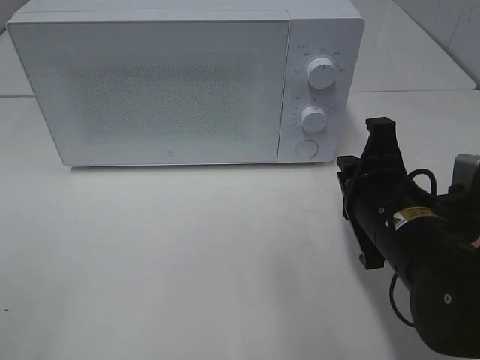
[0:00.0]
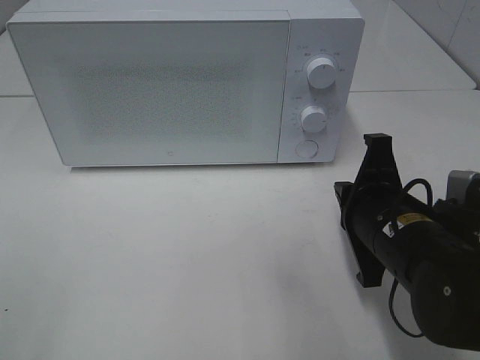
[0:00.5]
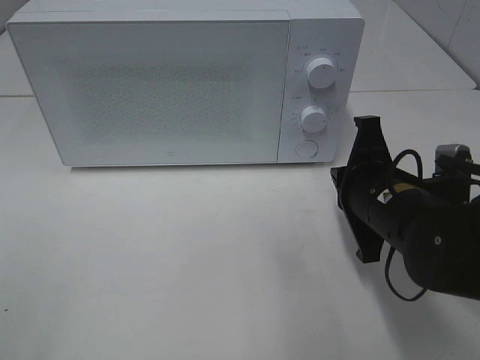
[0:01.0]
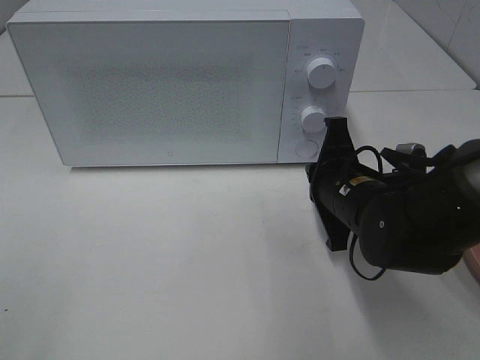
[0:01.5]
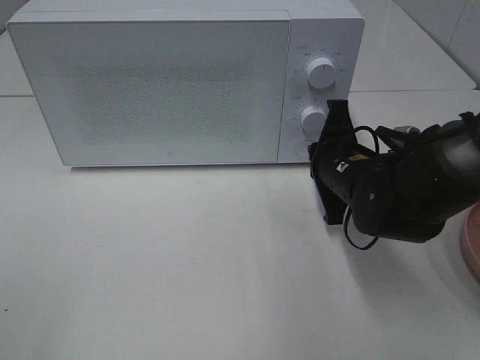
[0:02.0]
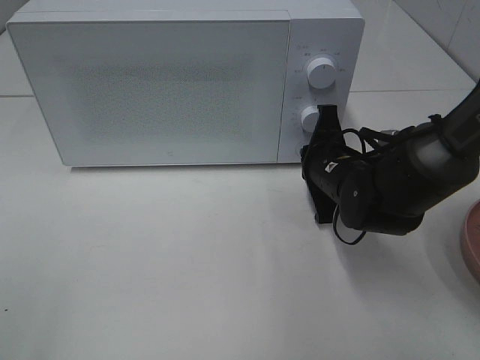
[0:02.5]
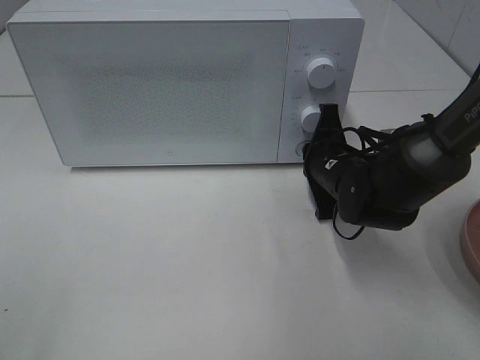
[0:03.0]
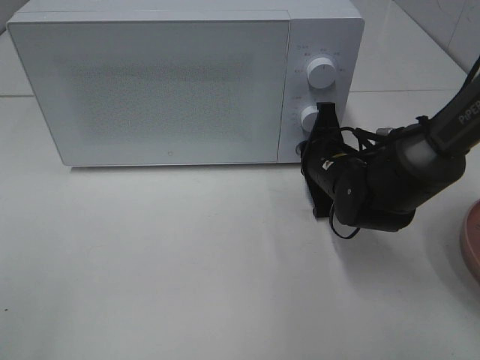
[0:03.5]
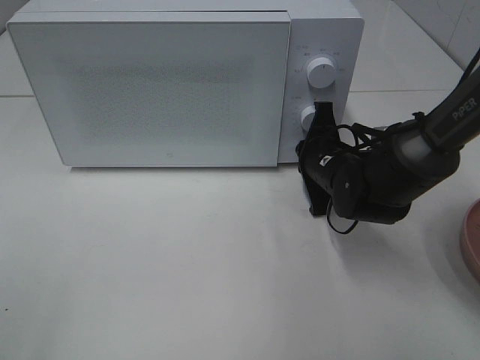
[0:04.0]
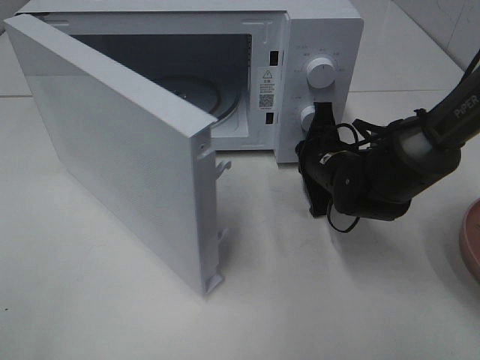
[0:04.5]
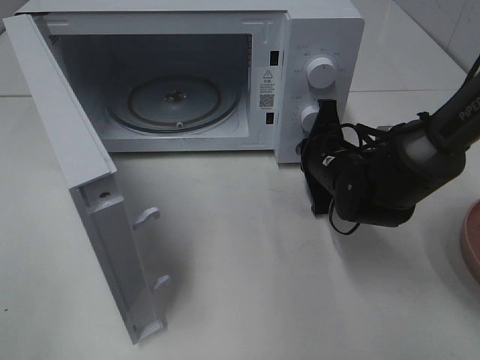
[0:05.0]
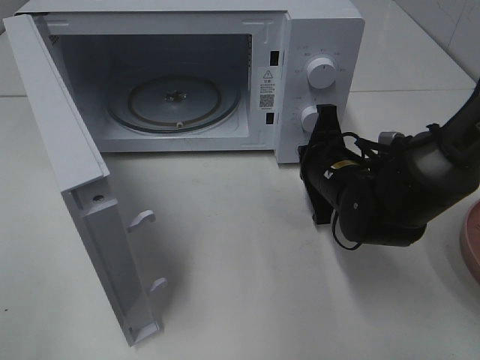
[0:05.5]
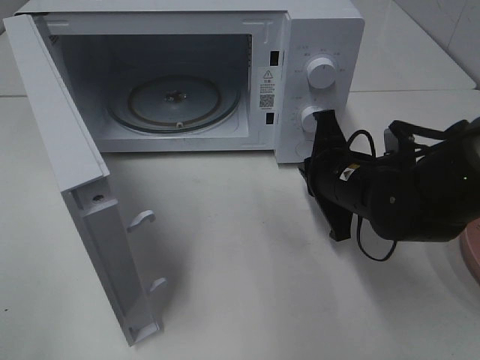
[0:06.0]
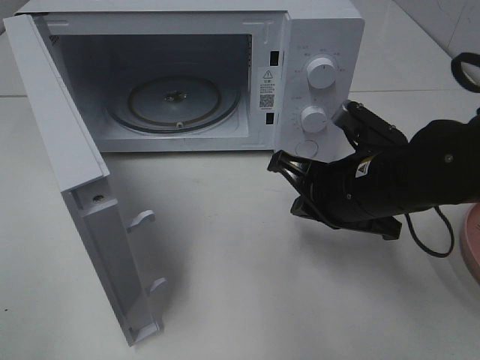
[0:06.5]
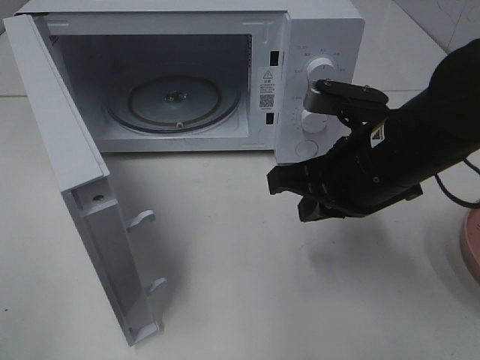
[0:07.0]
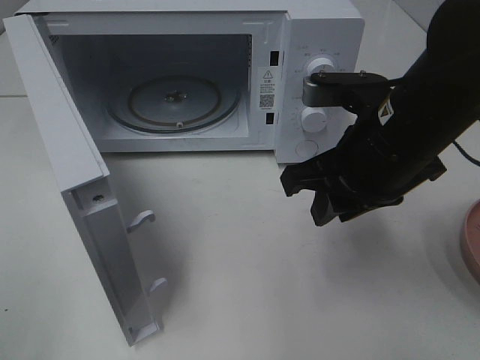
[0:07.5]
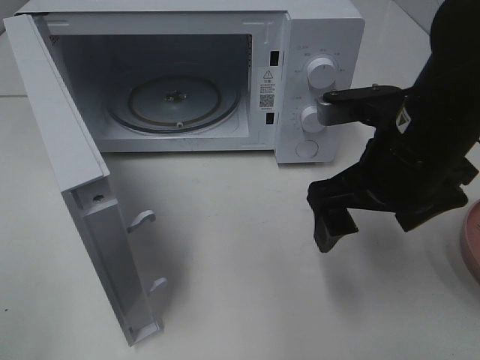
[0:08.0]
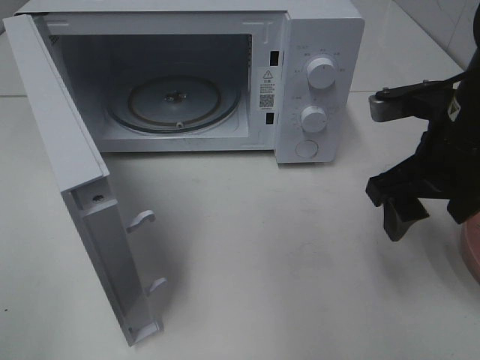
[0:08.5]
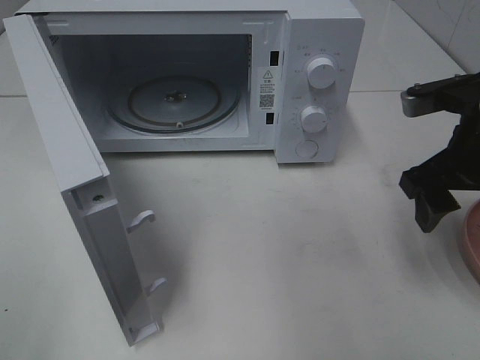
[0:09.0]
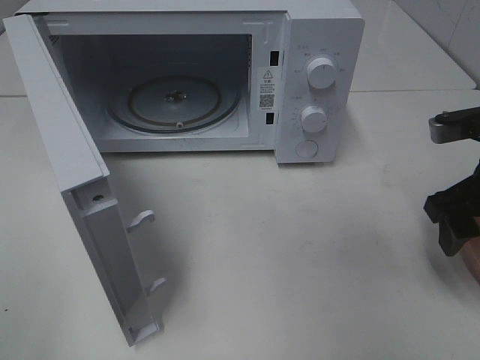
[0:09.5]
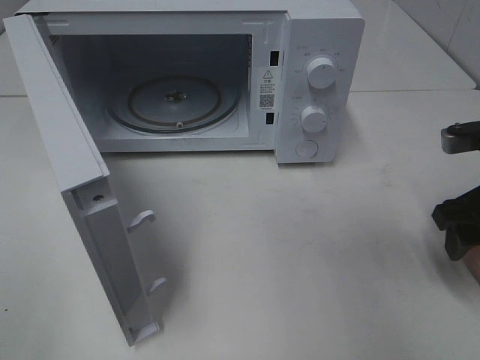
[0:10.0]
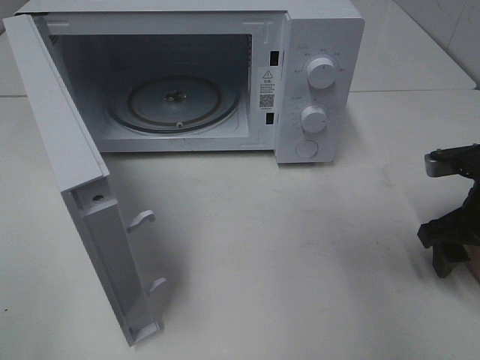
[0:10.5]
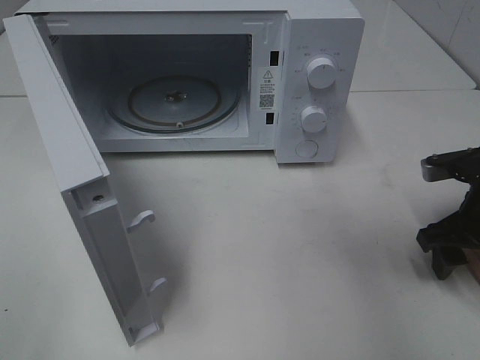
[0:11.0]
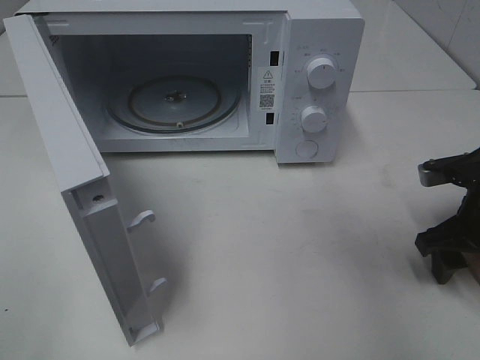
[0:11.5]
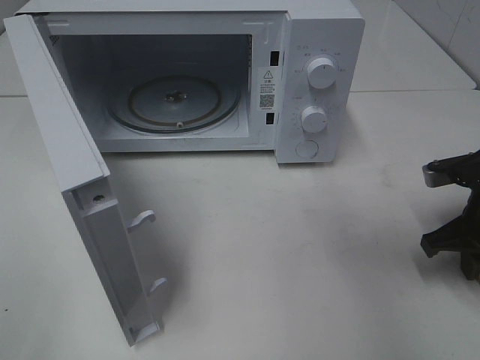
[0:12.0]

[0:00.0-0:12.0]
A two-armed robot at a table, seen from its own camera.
Task of the whole recording: Heat the burger.
Step, 0:00.0 to 0:05.5: Right hand: press the switch.
0:00.0 to 0:02.0: The right gripper moves forward, approximately 10 cm.
0:02.0 to 0:04.0: The right gripper shifts by some 5 cm.
0:04.0 to 0:06.0: The right gripper goes some 5 cm backward.
0:06.0 to 0:08.0: The right gripper heads upward and backward, covering roughly 10 cm, and opens up.
0:08.0 to 0:10.0: The right gripper moves to the right, roughly 15 cm.
0:10.0 to 0:12.0: The right gripper travels downward by about 5 cm, and closes its fingers.

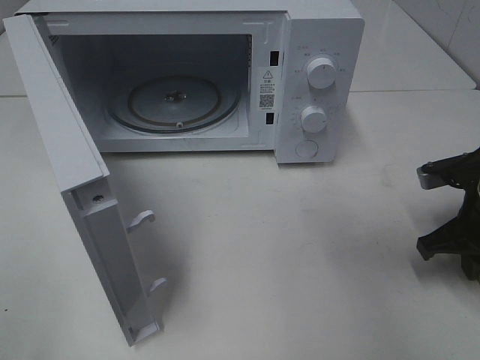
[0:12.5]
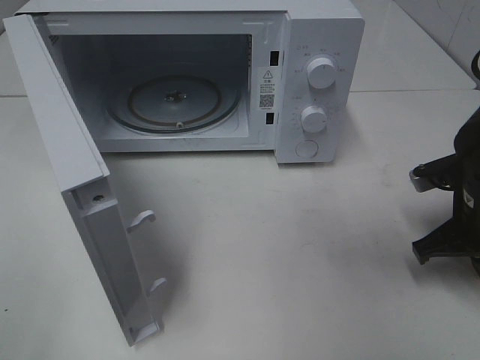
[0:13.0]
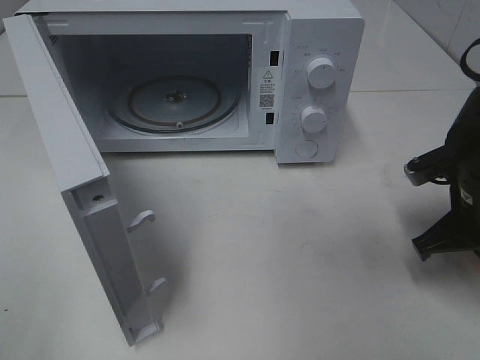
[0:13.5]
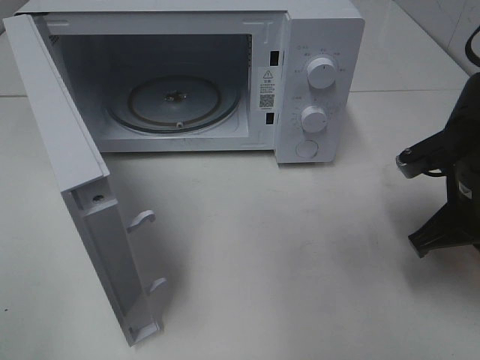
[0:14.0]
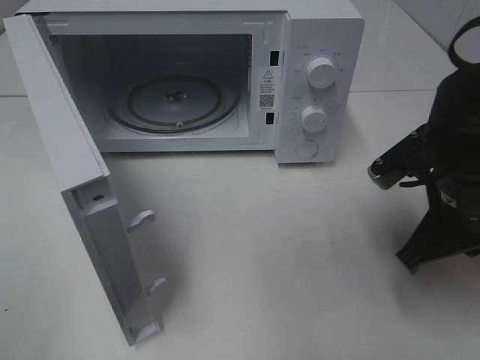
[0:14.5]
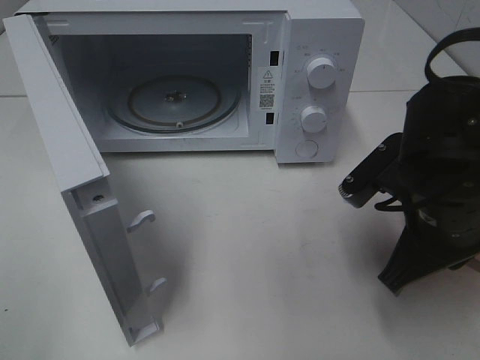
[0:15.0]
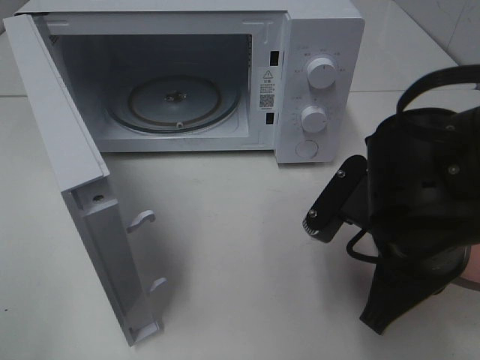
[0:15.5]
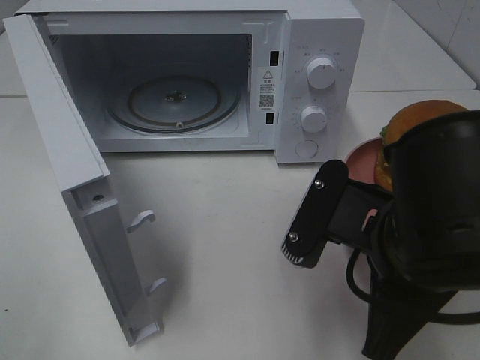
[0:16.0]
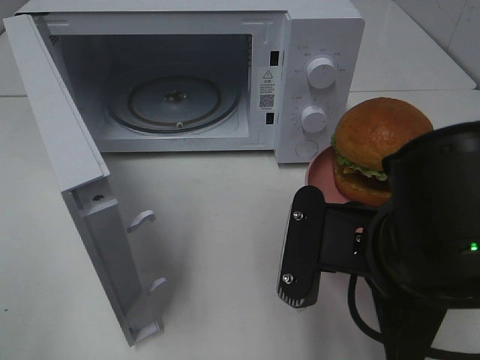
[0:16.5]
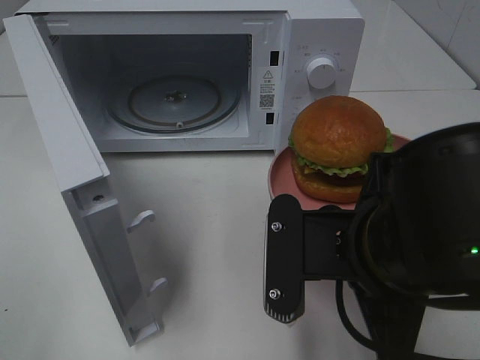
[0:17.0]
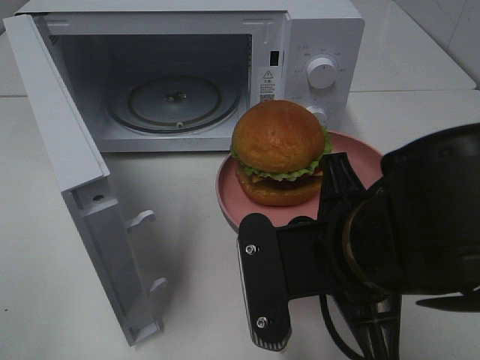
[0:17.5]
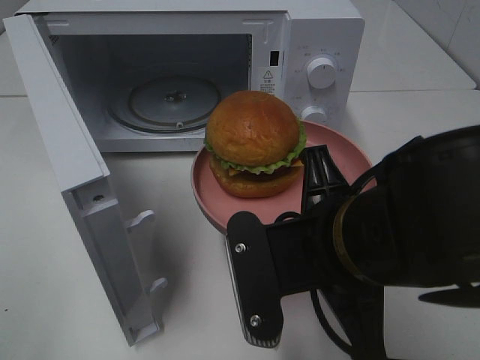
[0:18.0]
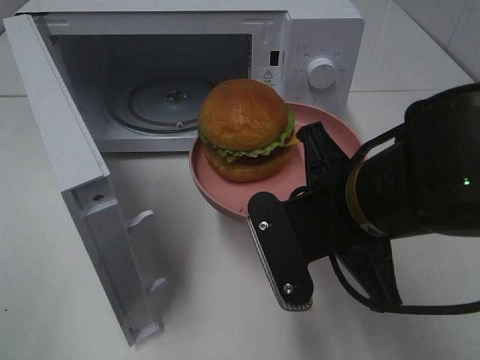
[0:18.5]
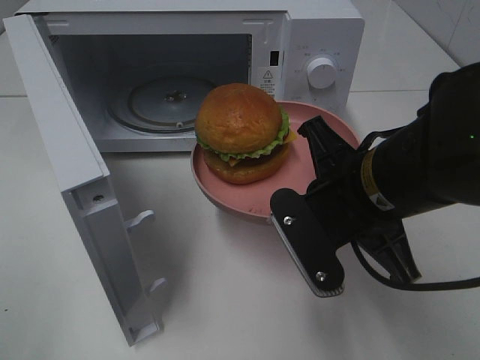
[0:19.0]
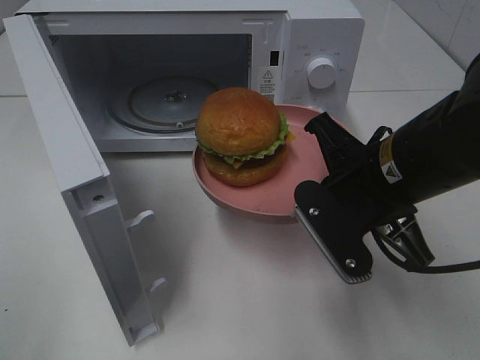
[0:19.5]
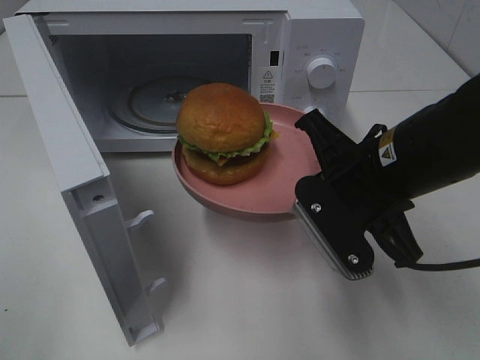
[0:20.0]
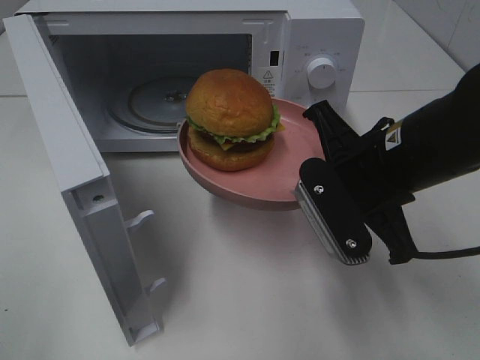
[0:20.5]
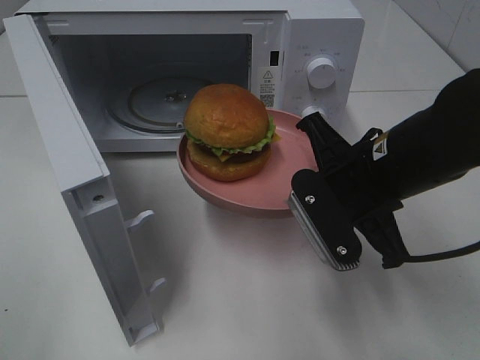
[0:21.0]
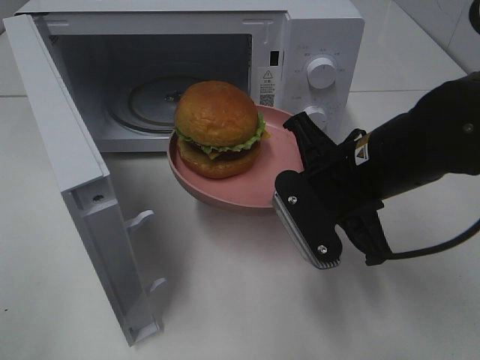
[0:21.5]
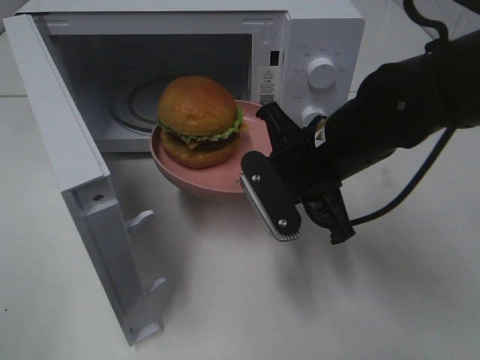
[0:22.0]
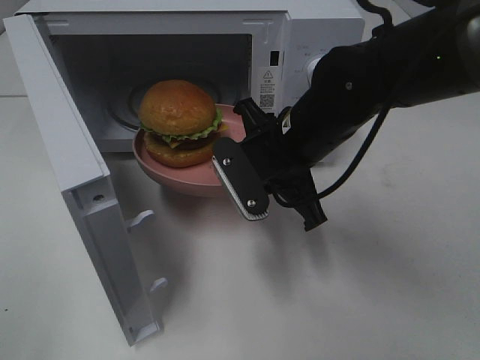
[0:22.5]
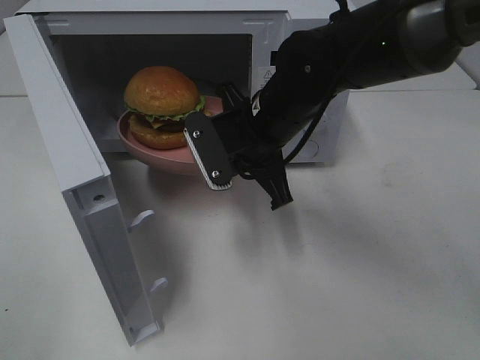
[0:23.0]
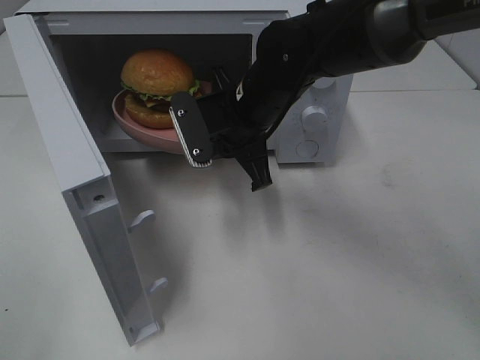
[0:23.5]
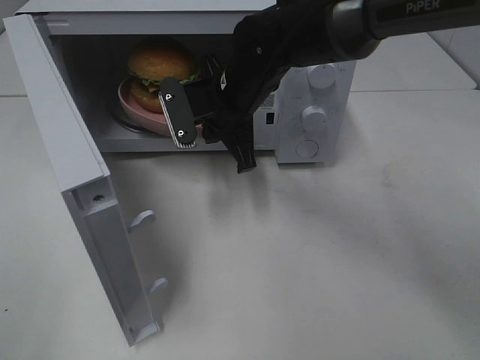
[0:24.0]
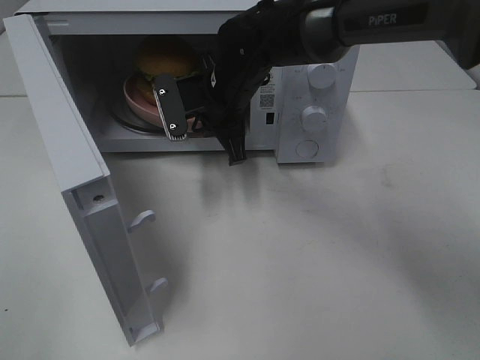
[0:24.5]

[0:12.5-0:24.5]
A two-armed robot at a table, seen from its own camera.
Task of the whole recording: Heat the burger.
0:12.5 to 0:14.5: The right gripper travels to the left and upward by some 10 cm.
0:14.5 to 0:16.5: The right gripper travels to the left and backward by some 15 cm.
0:18.5 to 0:20.5: The right gripper moves forward, about 5 cm.
0:20.5 to 0:22.5: The right gripper travels forward and to the left by about 10 cm.
0:22.5 to 0:24.5: The right gripper moves forward and to the left, some 15 cm.

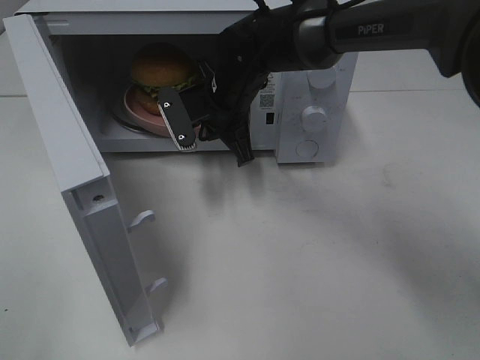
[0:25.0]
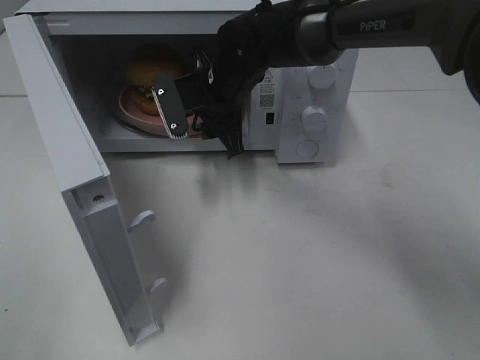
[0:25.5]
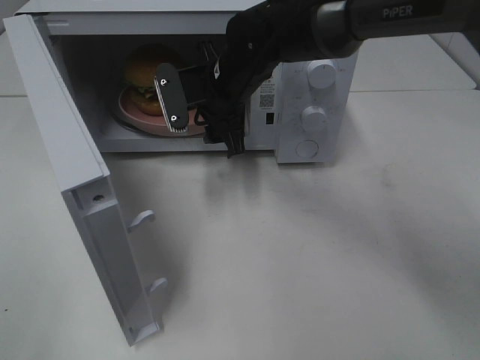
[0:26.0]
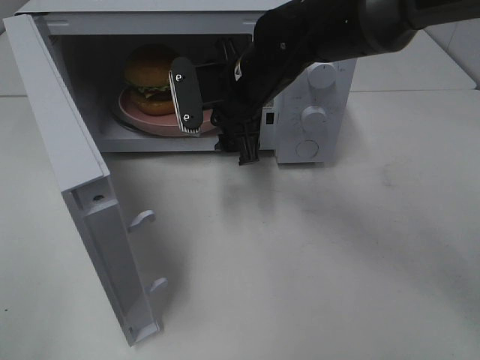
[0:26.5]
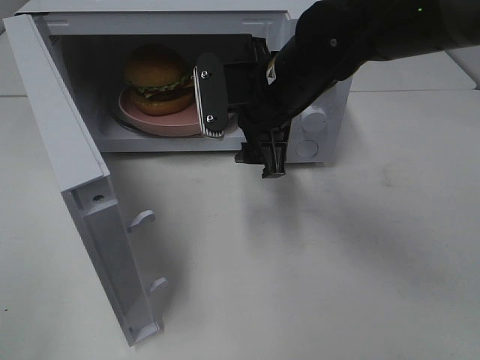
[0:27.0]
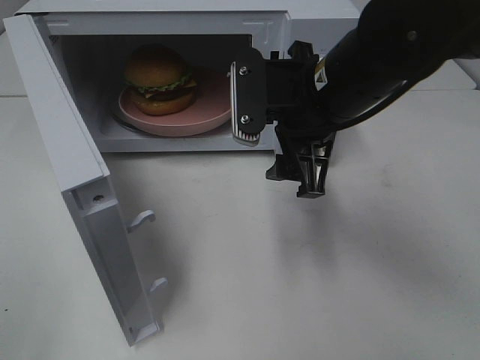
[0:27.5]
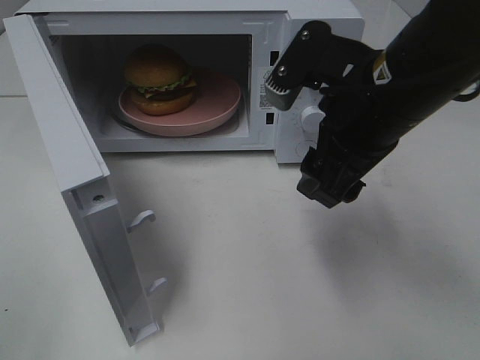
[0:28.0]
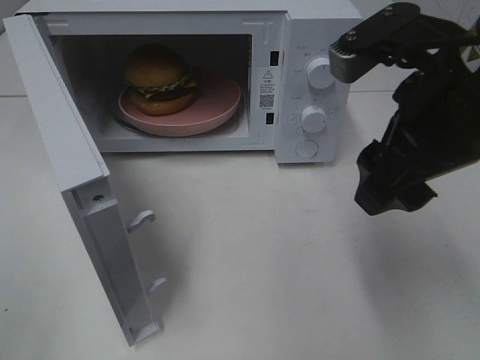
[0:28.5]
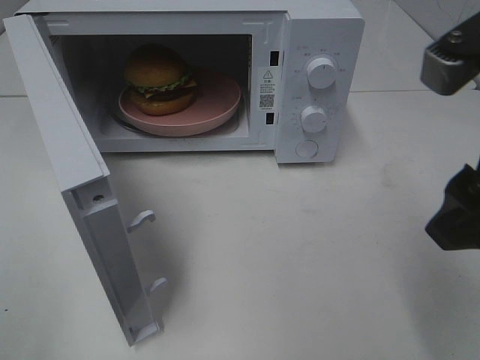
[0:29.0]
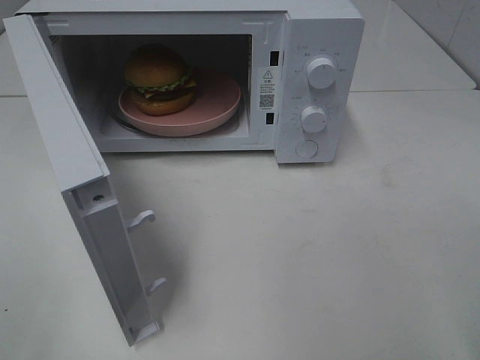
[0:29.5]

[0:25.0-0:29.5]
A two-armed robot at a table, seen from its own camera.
Task of the whole recording: Heat the burger.
0:25.0 to 0:27.0: The right gripper shifts roughly 10 cm backward, to the right and upward, and opens.
0:27.0 to 0:29.5: The right gripper heads backward and to the right, covering roughly 30 cm.
